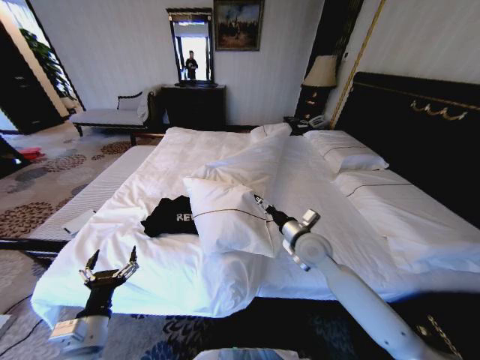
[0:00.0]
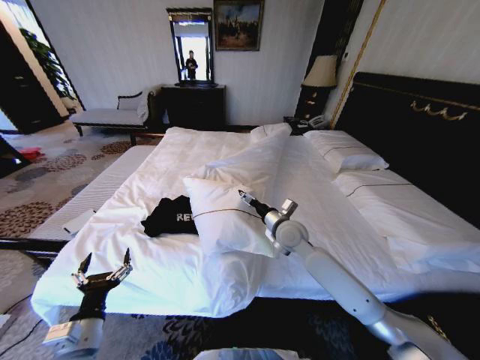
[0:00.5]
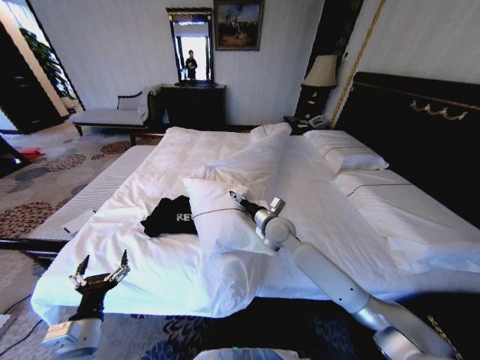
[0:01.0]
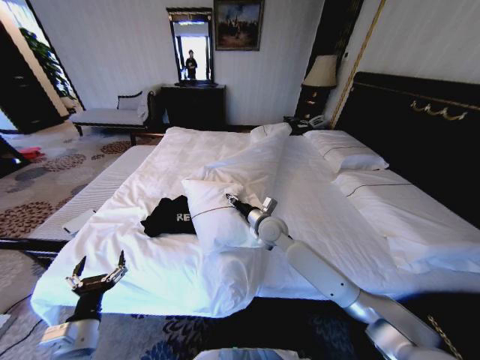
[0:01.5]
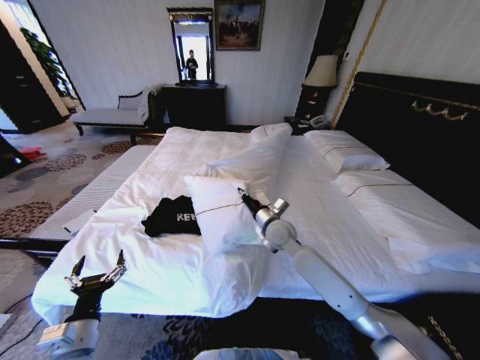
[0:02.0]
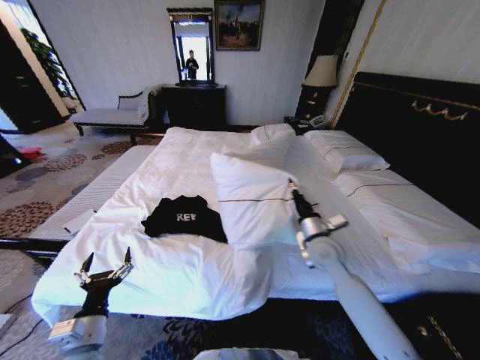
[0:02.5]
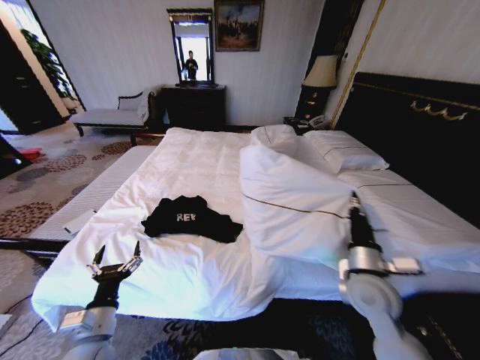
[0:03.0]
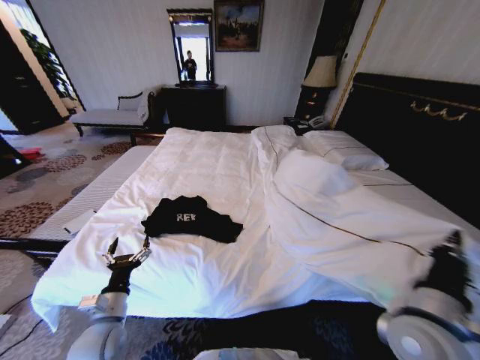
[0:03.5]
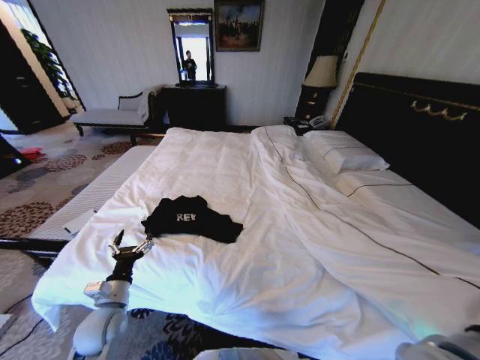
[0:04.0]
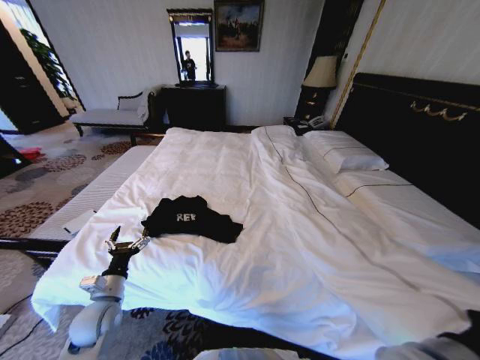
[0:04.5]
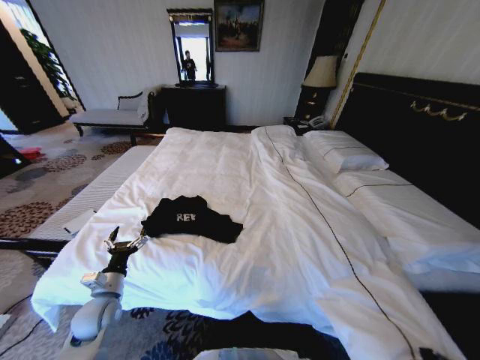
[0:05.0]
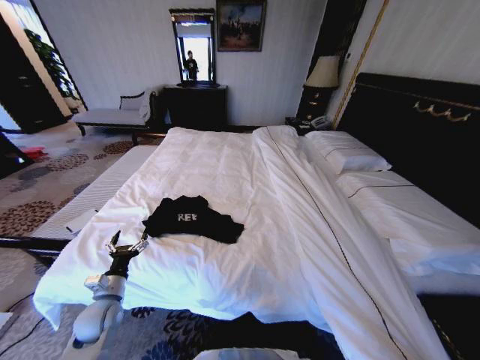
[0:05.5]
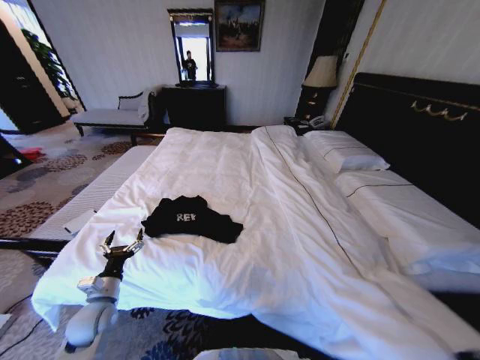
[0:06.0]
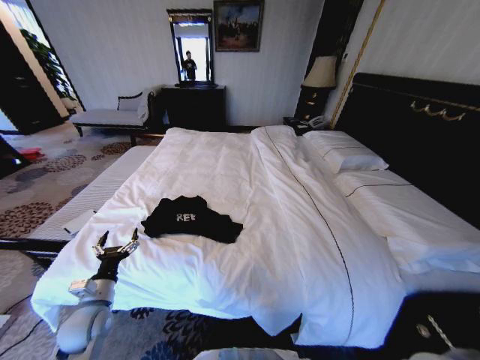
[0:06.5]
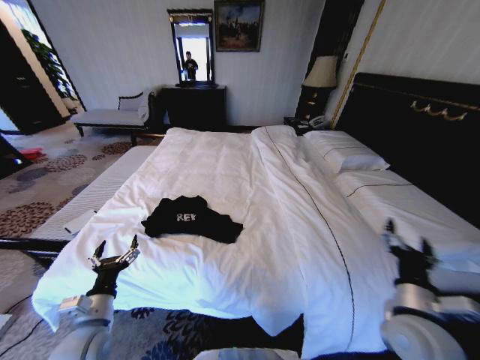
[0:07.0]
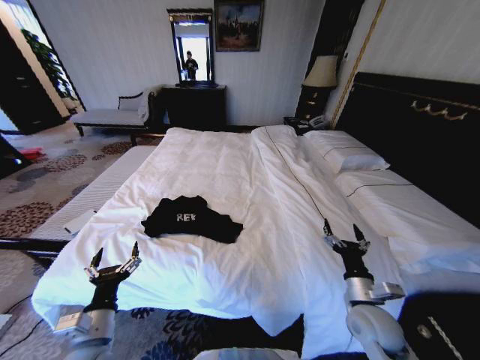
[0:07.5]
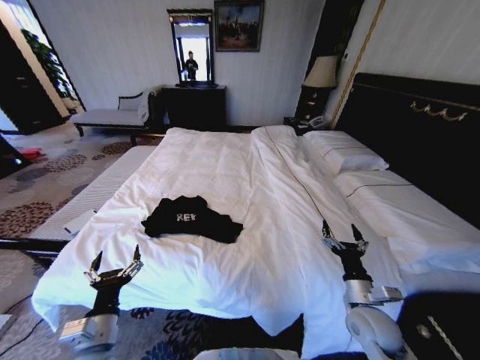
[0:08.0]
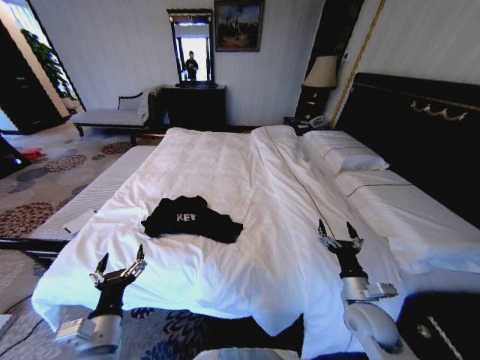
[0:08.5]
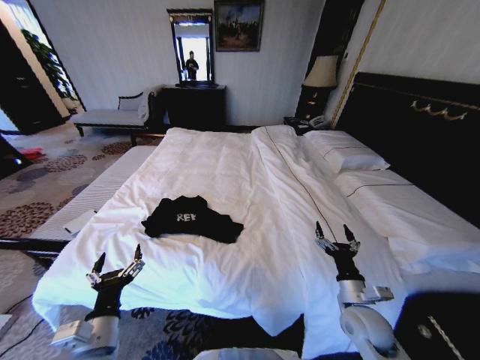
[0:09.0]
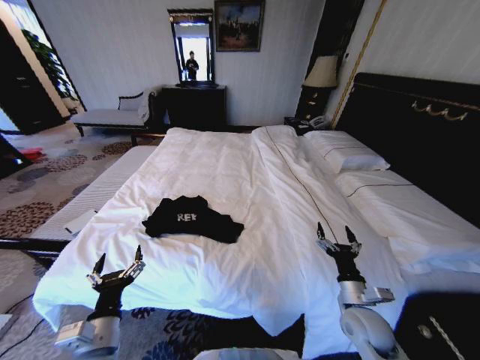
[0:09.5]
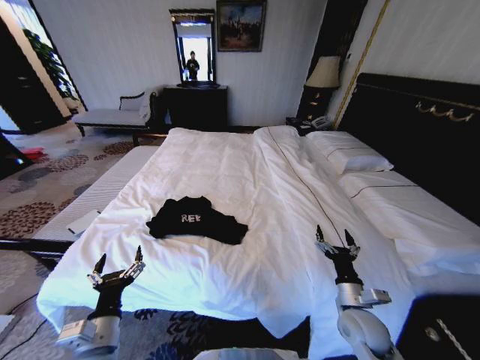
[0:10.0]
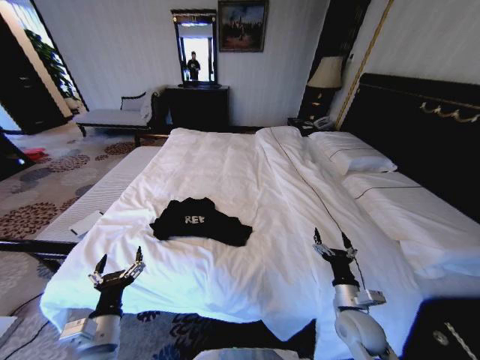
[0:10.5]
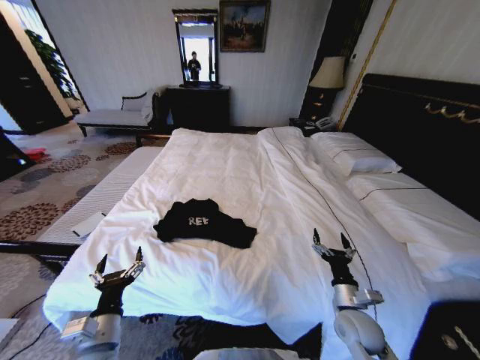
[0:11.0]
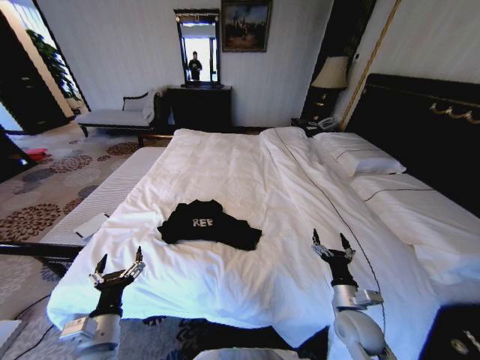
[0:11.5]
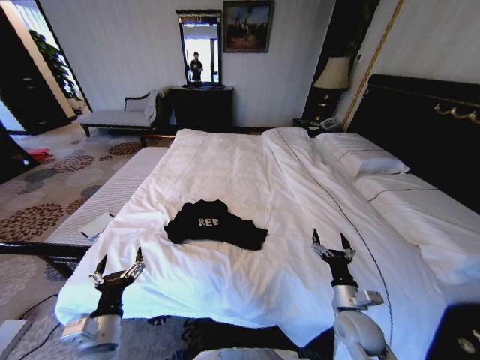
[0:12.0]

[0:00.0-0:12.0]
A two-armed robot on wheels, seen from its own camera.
Task of the whole recording: Fold the clothes on the bed.
0:00.0 to 0:02.0: The right gripper is displaced to the left and forward by roughly 10 cm, and closes its fingers.
0:02.0 to 0:04.0: The left gripper heads forward, covering approximately 10 cm; the right gripper goes approximately 35 cm backward and to the right.
0:04.0 to 0:06.0: The right gripper heads downward, covering some 10 cm, and opens up.
0:06.0 to 0:08.0: The left gripper is displaced backward, to the right and upward by approximately 15 cm. The right gripper moves forward, approximately 10 cm, and opens up.
0:08.0 to 0:10.0: The grippers make only small movements.

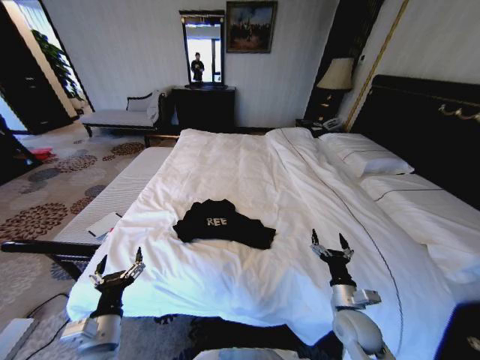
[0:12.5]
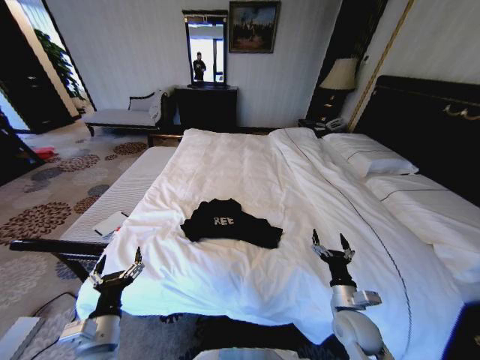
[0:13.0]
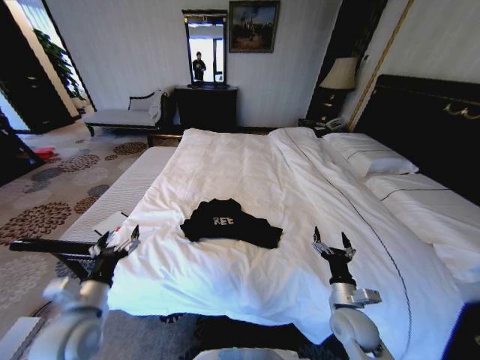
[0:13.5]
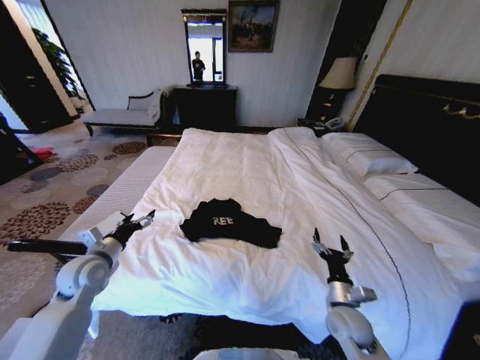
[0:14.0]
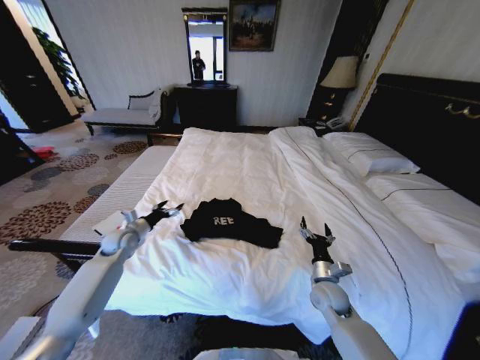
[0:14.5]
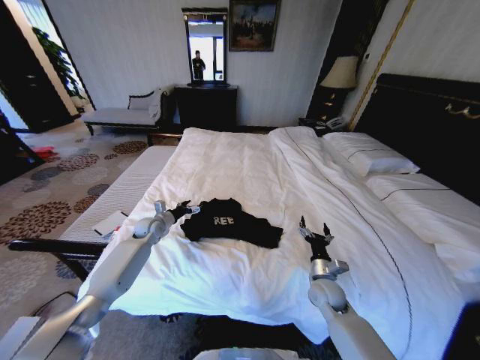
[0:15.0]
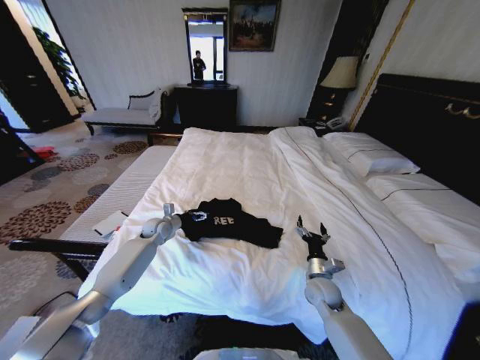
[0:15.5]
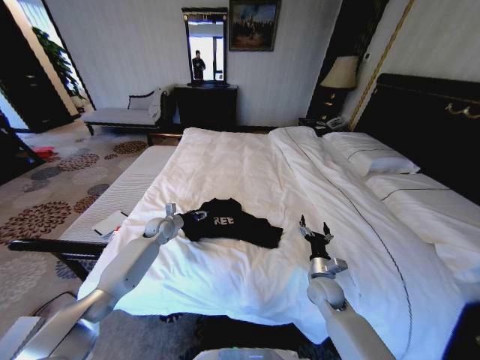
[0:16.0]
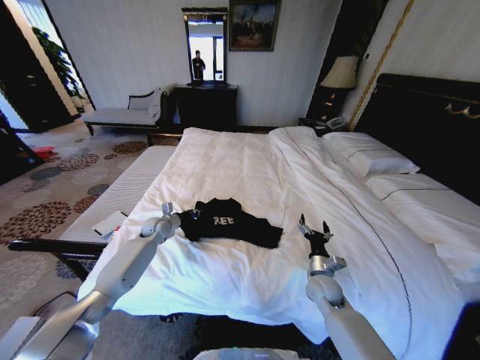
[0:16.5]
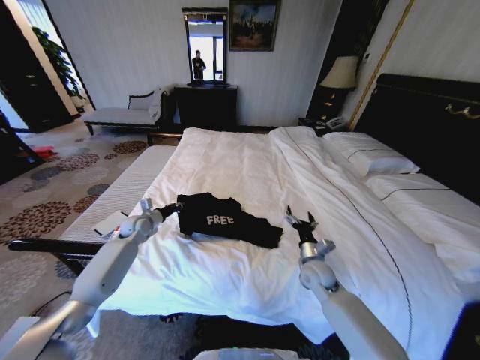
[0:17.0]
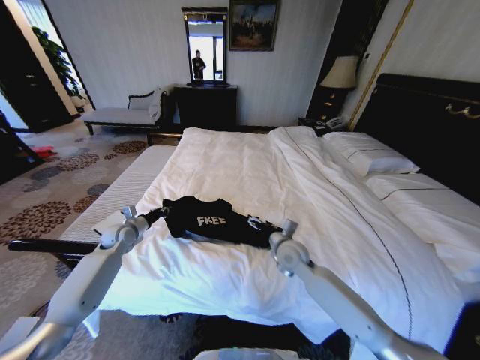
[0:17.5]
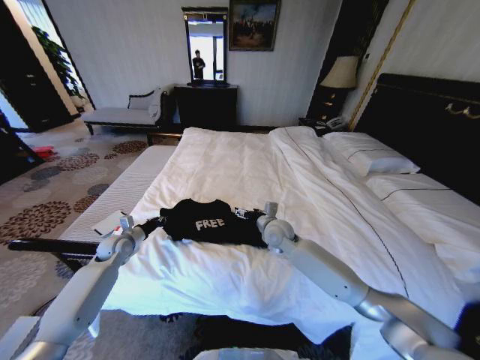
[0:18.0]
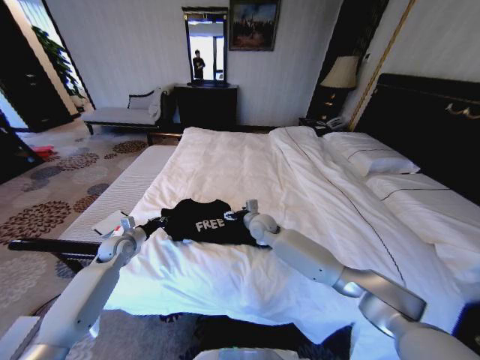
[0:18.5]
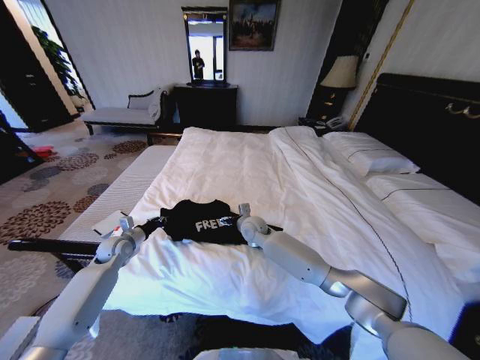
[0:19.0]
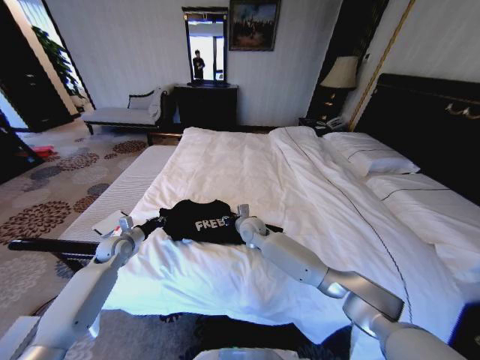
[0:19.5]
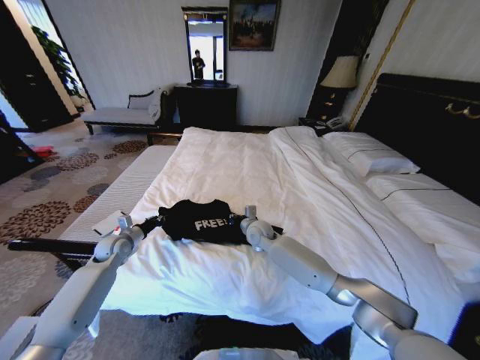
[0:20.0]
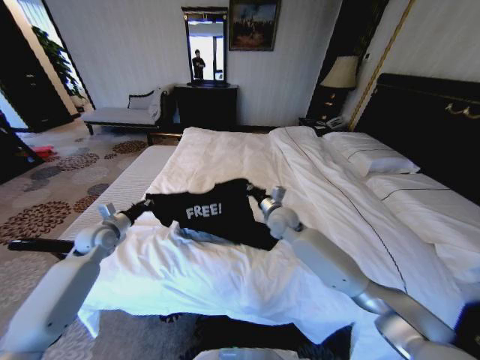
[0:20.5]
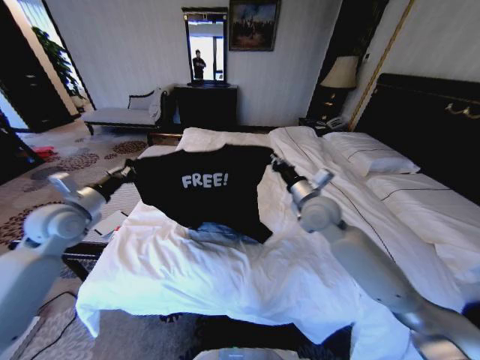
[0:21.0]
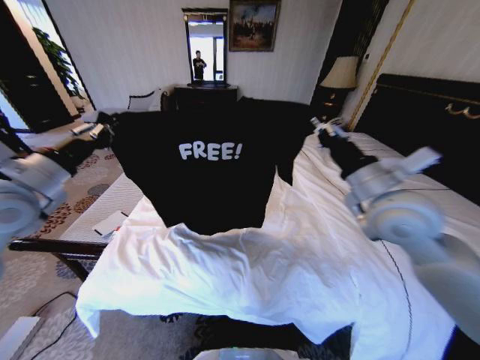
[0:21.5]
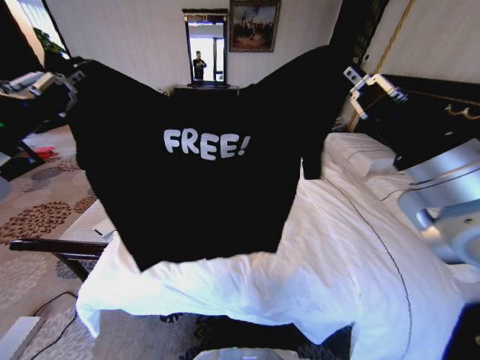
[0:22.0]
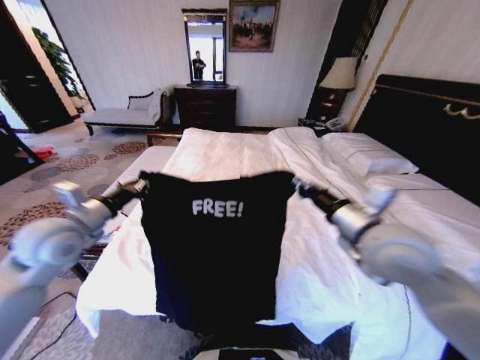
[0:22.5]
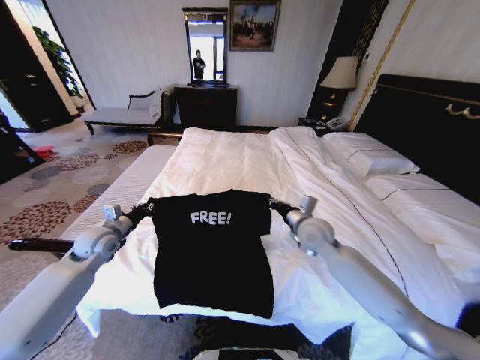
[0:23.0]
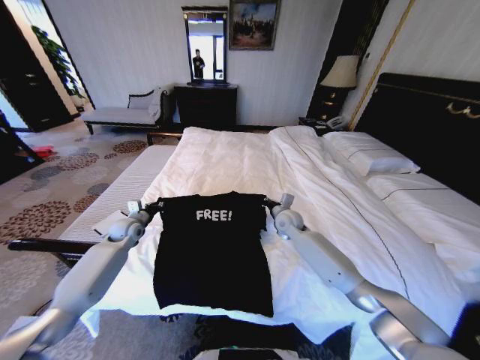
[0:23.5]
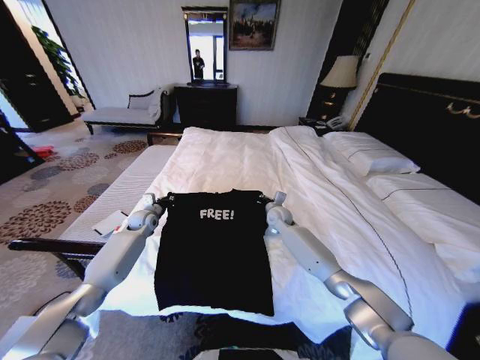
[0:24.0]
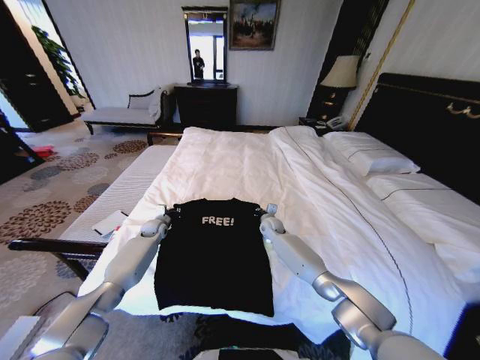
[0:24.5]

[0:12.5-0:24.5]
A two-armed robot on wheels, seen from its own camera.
Task of the whole recording: Fold the clothes on the bed.
0:12.5 to 0:14.5: The left gripper travels forward by roughly 30 cm, while the right gripper shifts approximately 10 cm forward.
0:14.5 to 0:16.5: The left gripper heads to the right and forward, covering approximately 10 cm, and closes its fingers.
0:16.5 to 0:18.5: The left gripper moves to the left and backward, approximately 15 cm. Meanwhile the right gripper is displaced to the left, forward and upward by some 30 cm.
0:18.5 to 0:20.5: The left gripper is displaced upward by approximately 5 cm. Meanwhile the right gripper heads to the right, covering about 5 cm, and closes its fingers.
0:20.5 to 0:22.5: The right gripper shifts approximately 30 cm backward, upward and to the right. The left gripper is displaced upward and backward by roughly 20 cm.
0:22.5 to 0:24.5: Both grippers travel together downward and forward, about 40 cm.

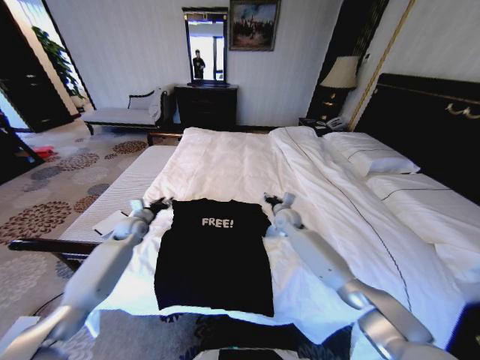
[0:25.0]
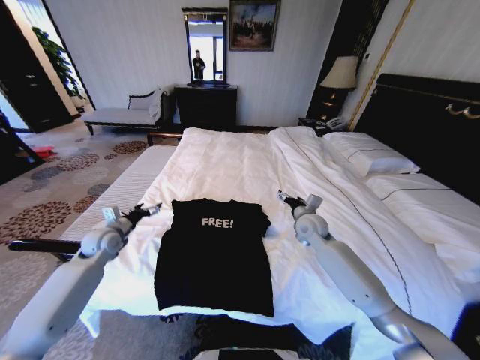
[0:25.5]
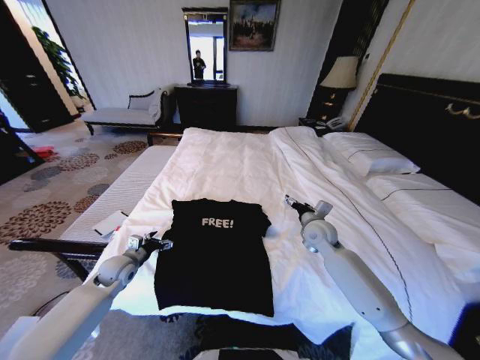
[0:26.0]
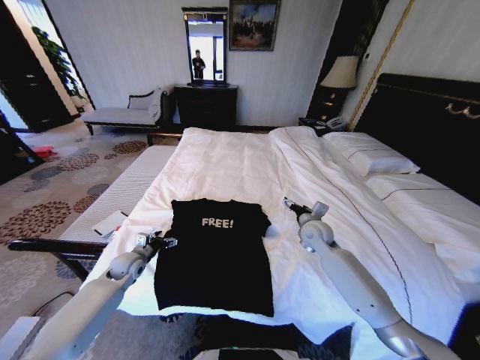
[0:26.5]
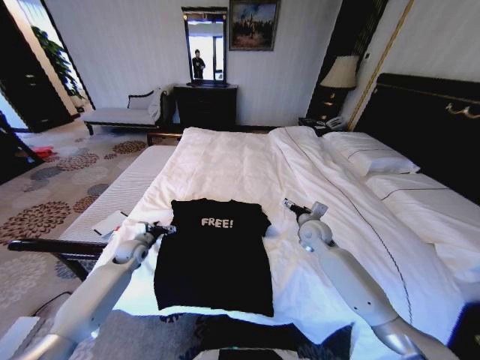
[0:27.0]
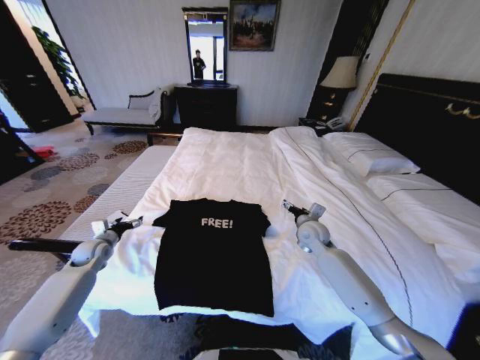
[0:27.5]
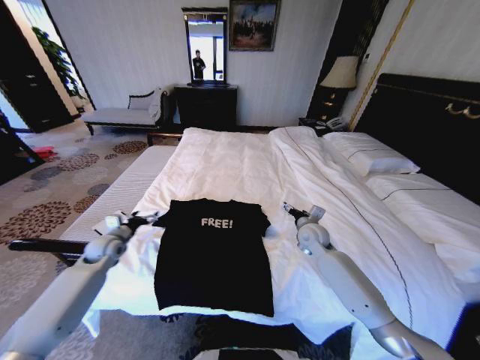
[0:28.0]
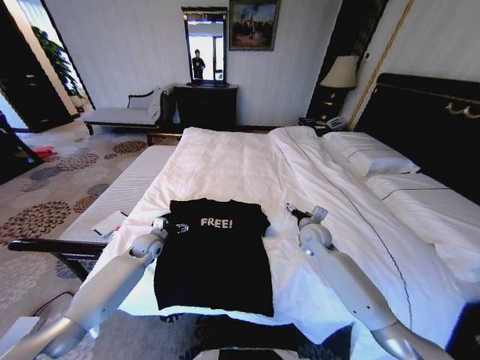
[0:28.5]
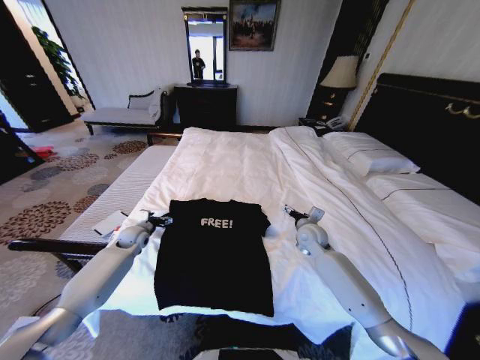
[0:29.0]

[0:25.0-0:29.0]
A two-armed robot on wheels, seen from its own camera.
Task of the whole recording: Fold the clothes on the bed.
0:25.0 to 0:27.0: The left gripper goes roughly 10 cm downward and backward, and opens. Meanwhile the right gripper is displaced backward and to the right by some 10 cm, and opens up.
0:27.0 to 0:29.0: The left gripper moves left and right over roughly 15 cm, changing direction 2 times.
